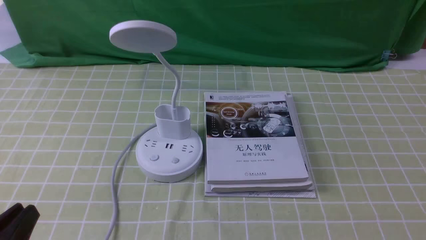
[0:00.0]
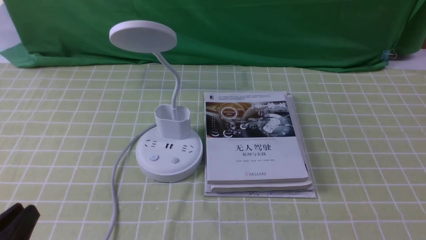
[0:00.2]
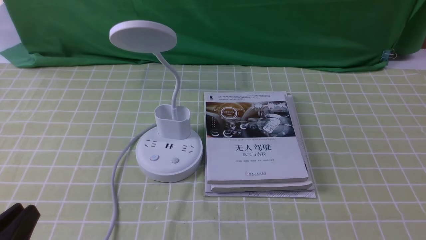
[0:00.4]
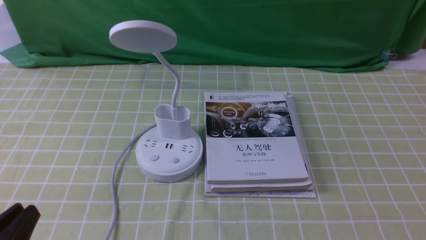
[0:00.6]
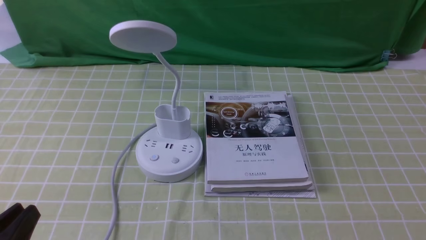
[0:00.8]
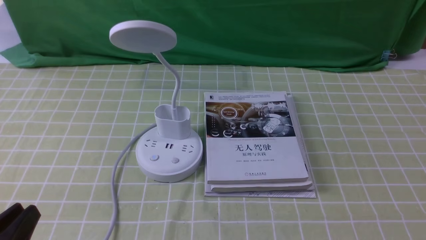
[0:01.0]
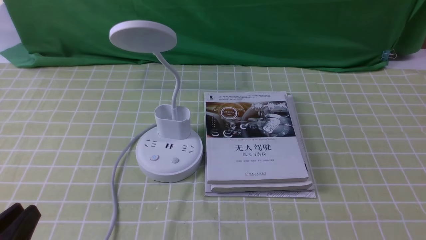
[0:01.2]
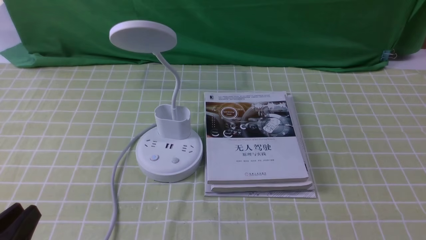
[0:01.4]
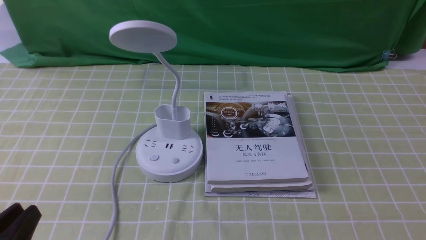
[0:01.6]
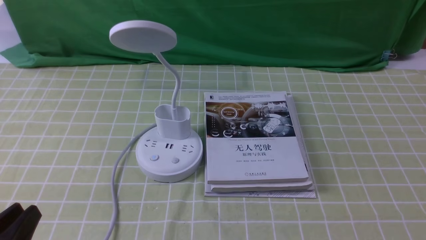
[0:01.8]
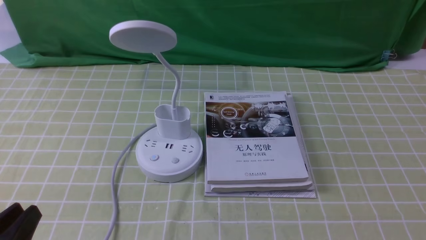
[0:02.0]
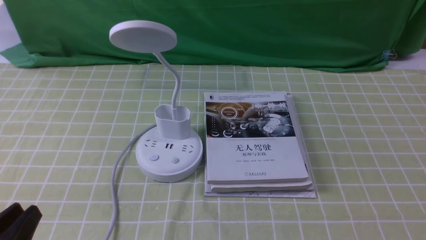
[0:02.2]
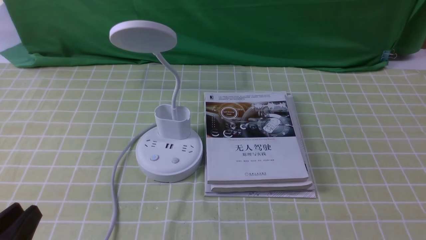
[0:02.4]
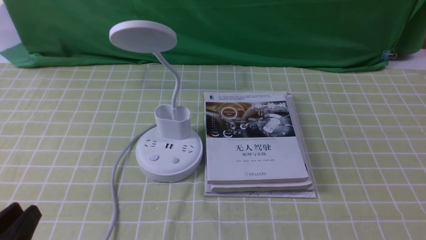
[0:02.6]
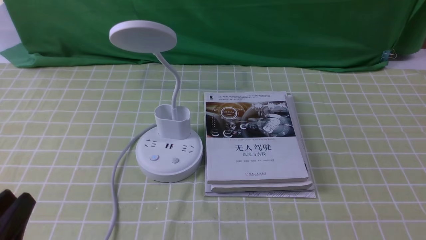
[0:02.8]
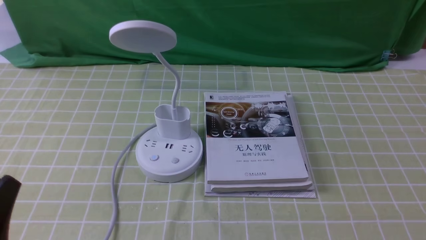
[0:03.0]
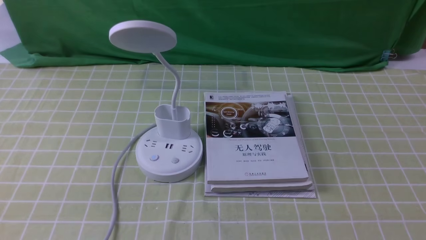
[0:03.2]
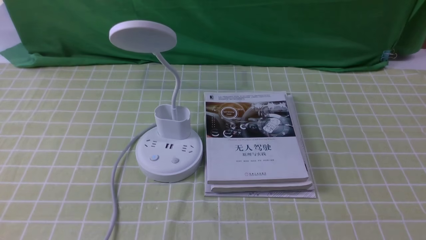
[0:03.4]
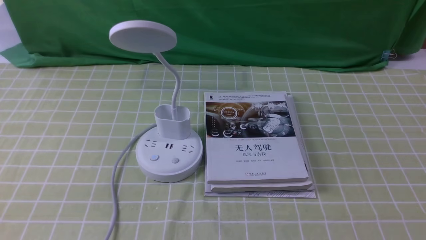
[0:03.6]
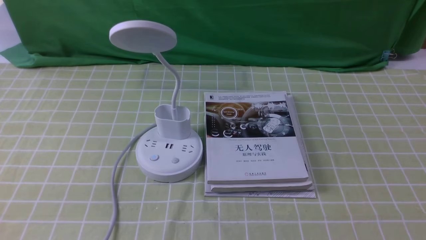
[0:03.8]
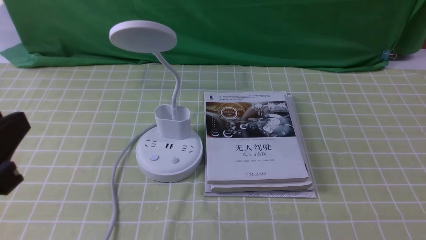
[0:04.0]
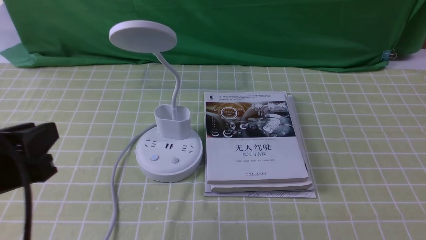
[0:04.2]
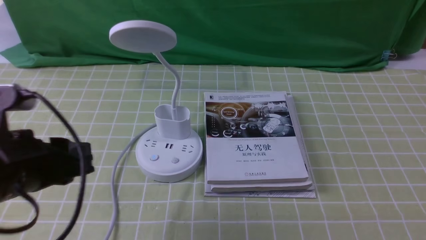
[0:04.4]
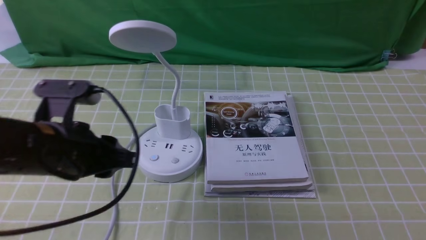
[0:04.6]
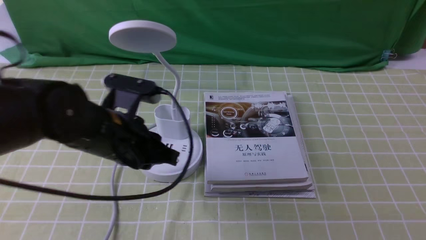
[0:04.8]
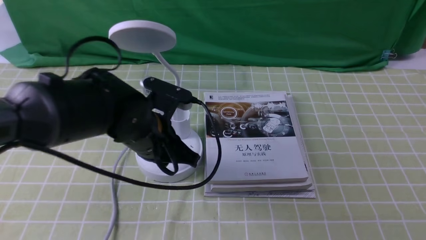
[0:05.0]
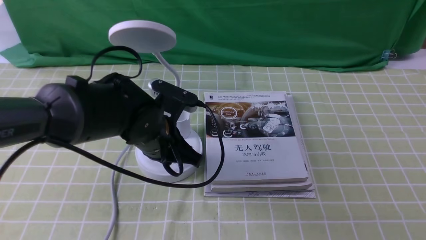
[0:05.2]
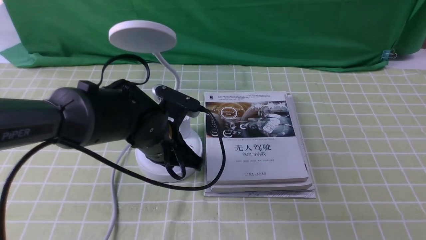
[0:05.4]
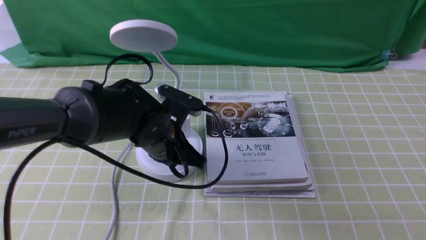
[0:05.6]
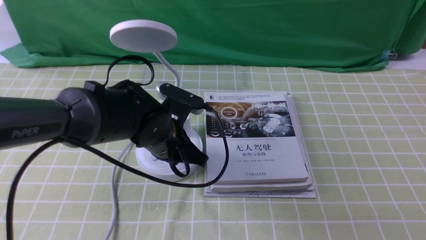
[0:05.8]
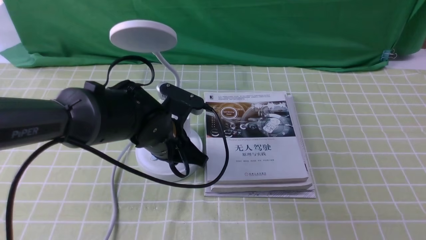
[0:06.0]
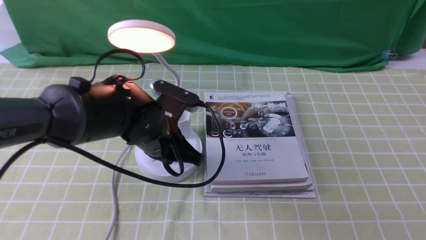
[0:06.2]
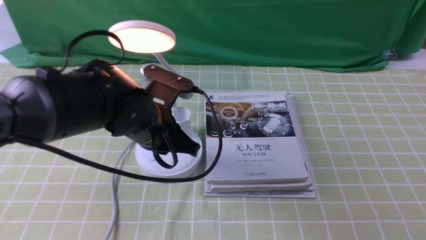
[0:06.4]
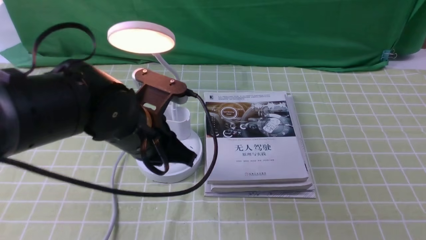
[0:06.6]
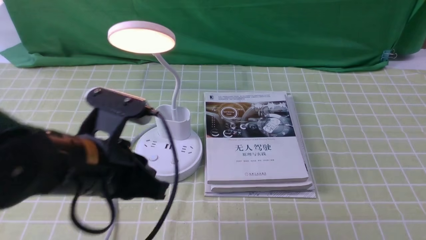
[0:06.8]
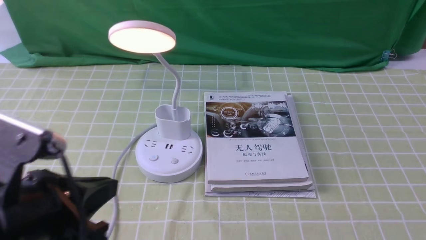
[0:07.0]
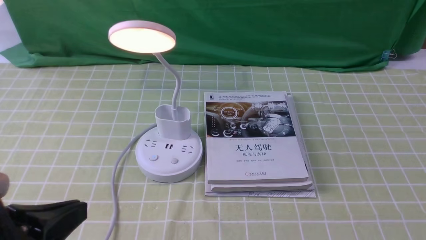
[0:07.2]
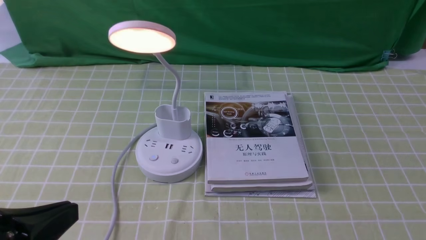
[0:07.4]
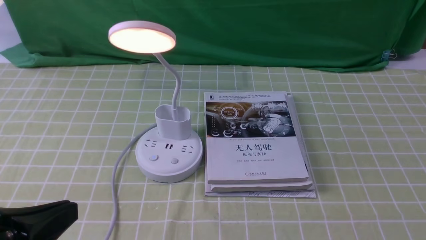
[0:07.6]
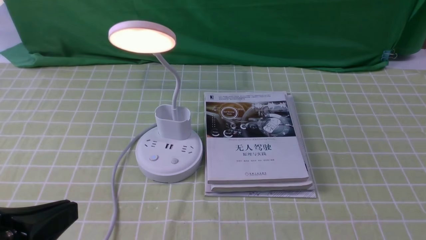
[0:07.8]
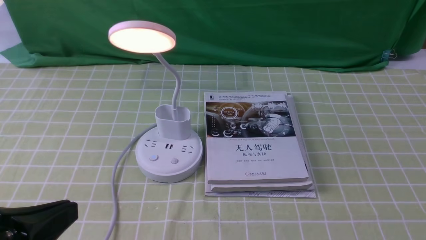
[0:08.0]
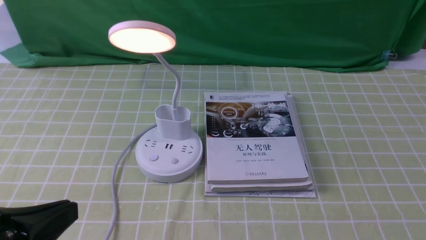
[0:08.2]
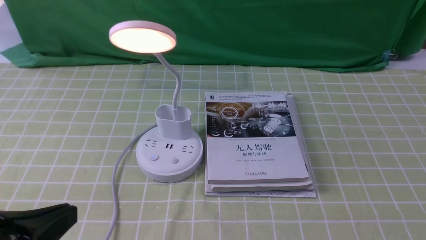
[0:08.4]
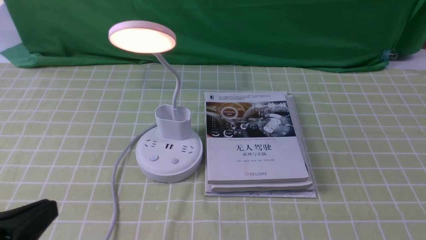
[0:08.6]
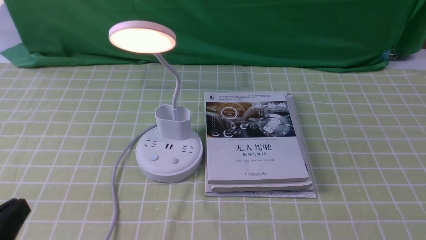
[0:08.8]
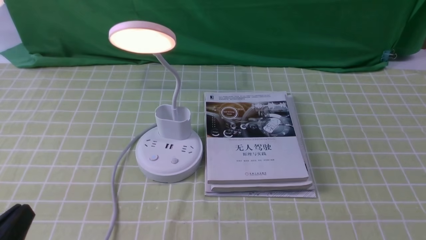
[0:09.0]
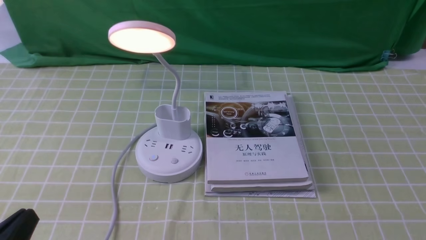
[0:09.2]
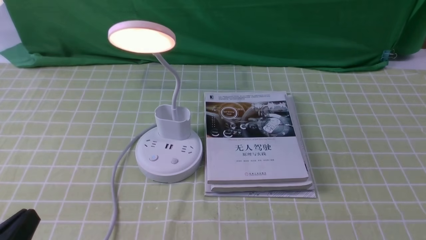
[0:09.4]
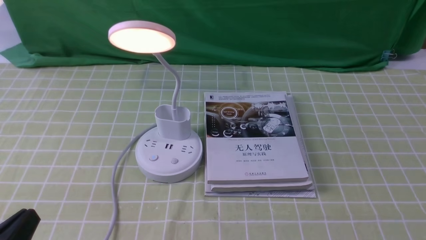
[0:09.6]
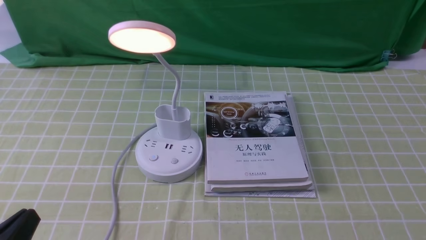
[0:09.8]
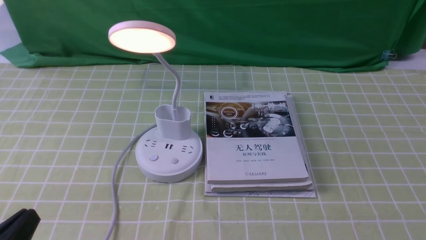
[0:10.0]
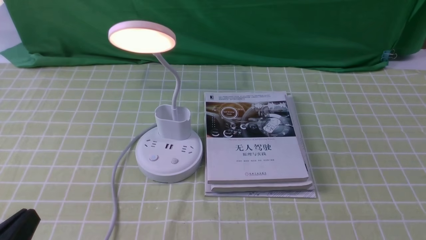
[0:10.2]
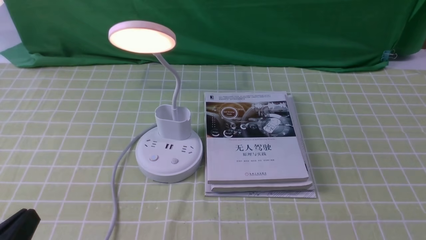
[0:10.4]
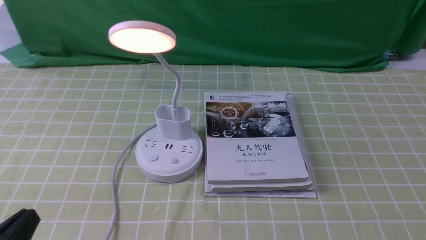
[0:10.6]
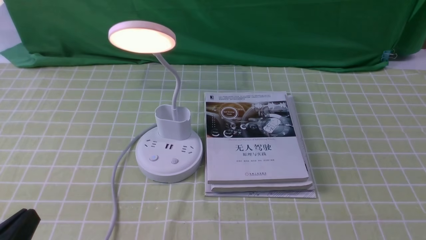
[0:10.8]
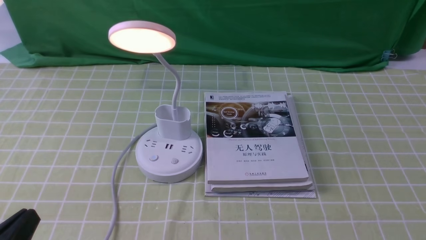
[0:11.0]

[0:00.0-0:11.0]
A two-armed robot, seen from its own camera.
Step, 0:00.0 to 0:06.4: use the left arm to press the button switch on the lamp holder.
0:00.0 to 0:01.6: Both grippers stay put.
0:01.6 to 0:03.2: The left gripper shifts roughly 5 cm upward.
0:03.2 to 0:04.8: The left gripper is displaced forward and to the right by roughly 25 cm, and closes up.
0:04.8 to 0:06.2: The left gripper moves some 5 cm, and closes.
0:06.2 to 0:07.8: The left gripper shifts roughly 25 cm backward and to the left.
0:07.8 to 0:09.4: The left gripper shifts approximately 10 cm downward.
0:09.4 to 0:11.0: Neither gripper changes place.
